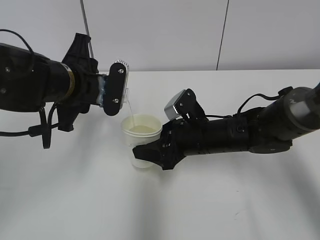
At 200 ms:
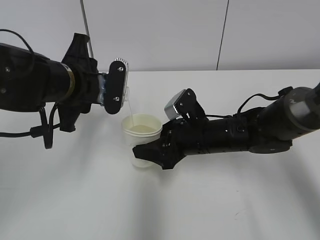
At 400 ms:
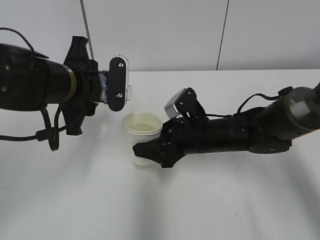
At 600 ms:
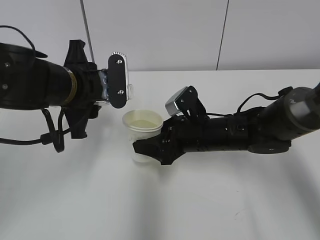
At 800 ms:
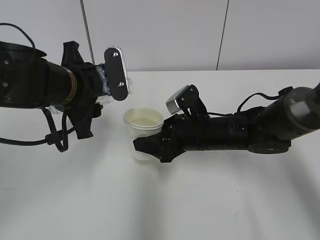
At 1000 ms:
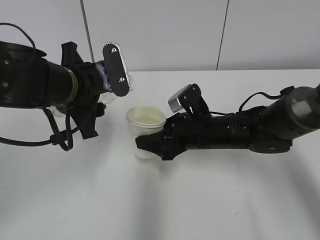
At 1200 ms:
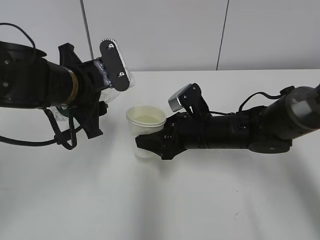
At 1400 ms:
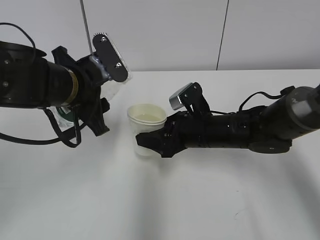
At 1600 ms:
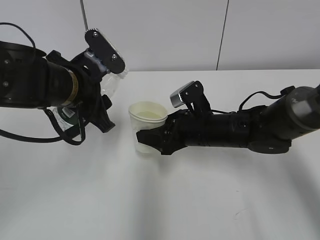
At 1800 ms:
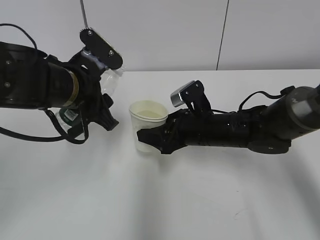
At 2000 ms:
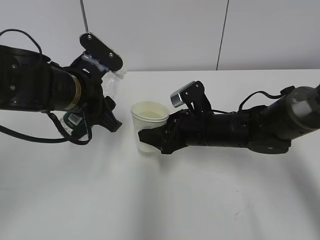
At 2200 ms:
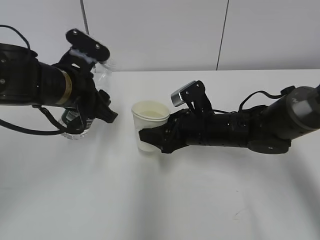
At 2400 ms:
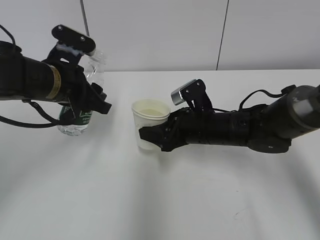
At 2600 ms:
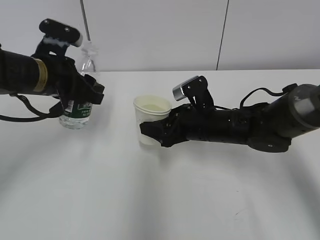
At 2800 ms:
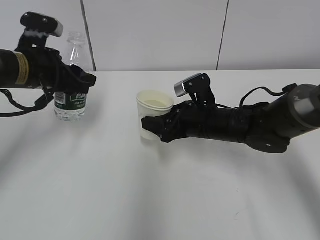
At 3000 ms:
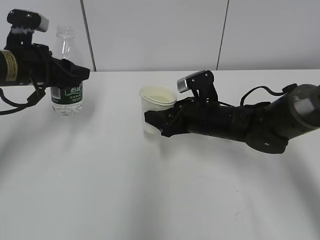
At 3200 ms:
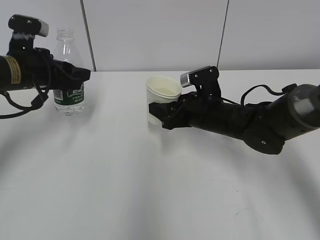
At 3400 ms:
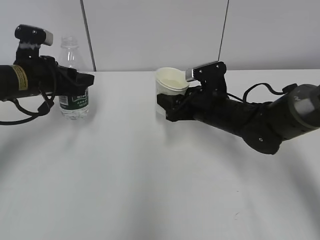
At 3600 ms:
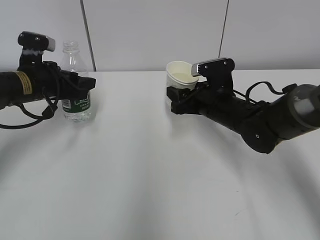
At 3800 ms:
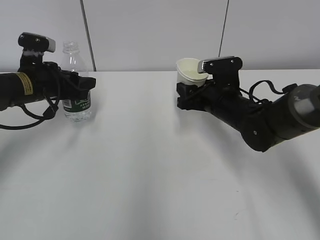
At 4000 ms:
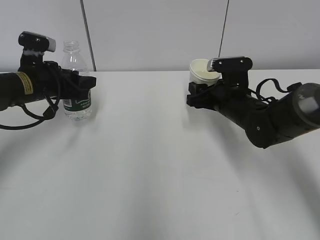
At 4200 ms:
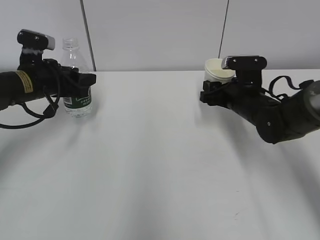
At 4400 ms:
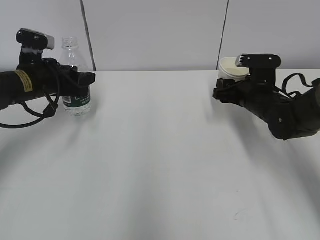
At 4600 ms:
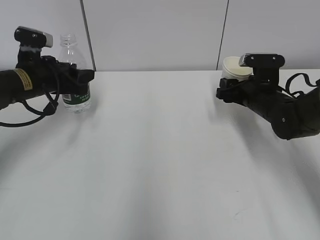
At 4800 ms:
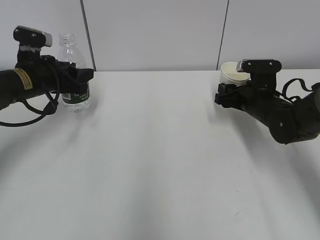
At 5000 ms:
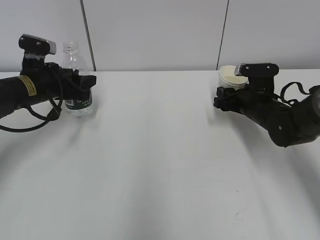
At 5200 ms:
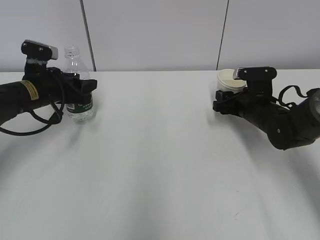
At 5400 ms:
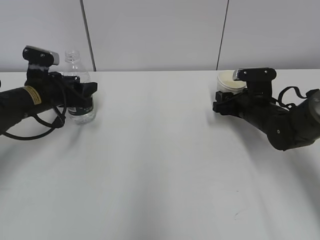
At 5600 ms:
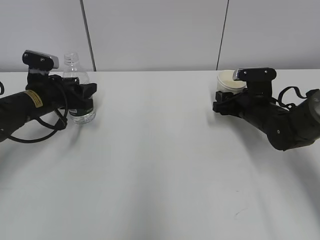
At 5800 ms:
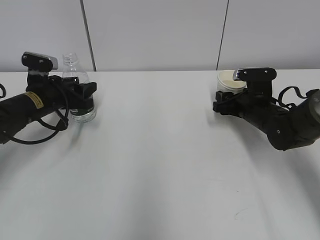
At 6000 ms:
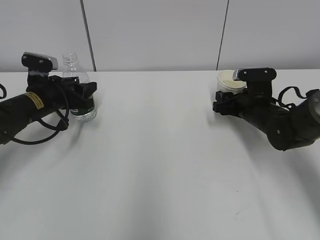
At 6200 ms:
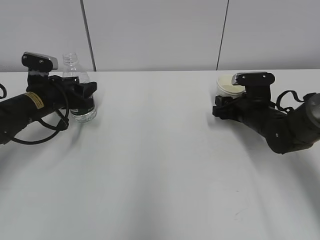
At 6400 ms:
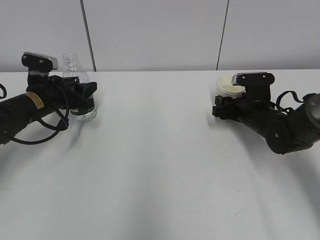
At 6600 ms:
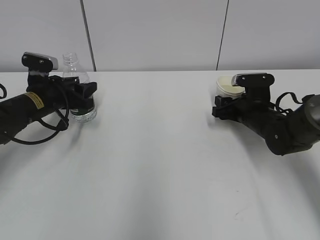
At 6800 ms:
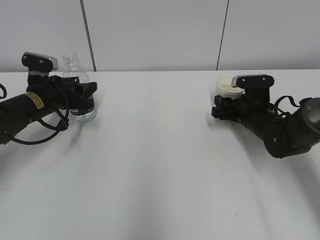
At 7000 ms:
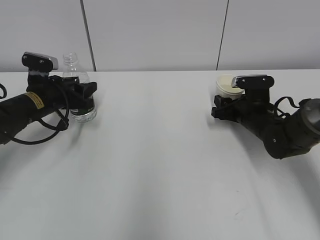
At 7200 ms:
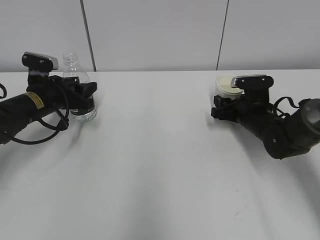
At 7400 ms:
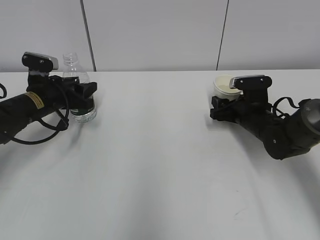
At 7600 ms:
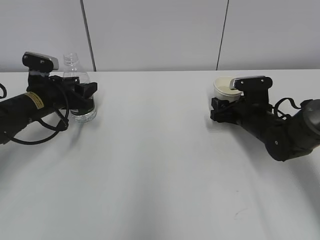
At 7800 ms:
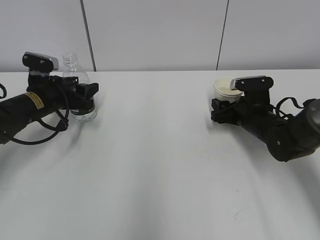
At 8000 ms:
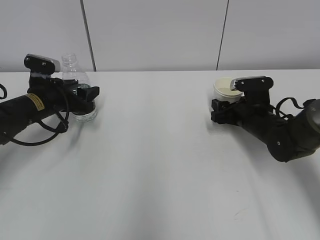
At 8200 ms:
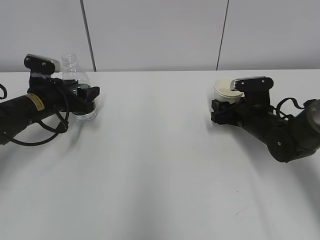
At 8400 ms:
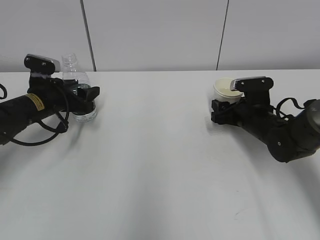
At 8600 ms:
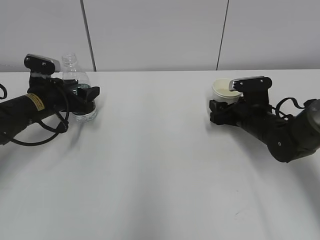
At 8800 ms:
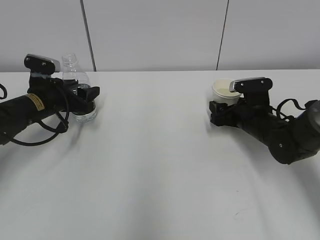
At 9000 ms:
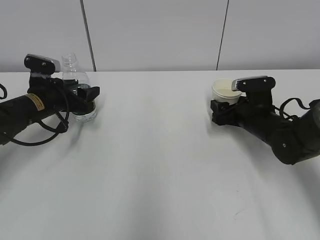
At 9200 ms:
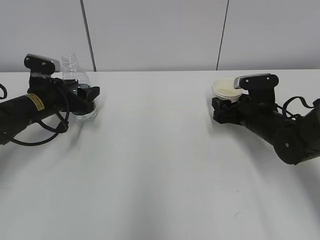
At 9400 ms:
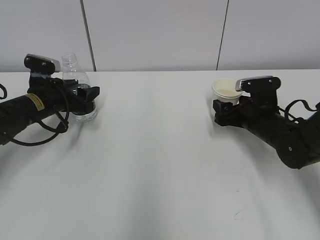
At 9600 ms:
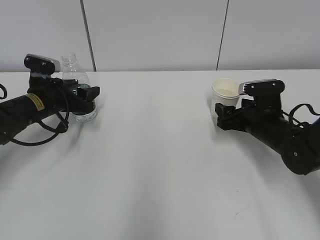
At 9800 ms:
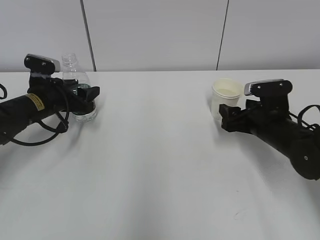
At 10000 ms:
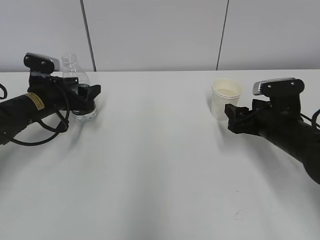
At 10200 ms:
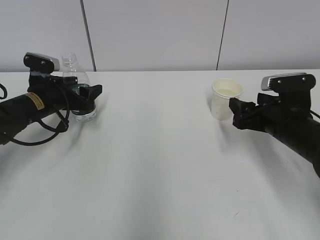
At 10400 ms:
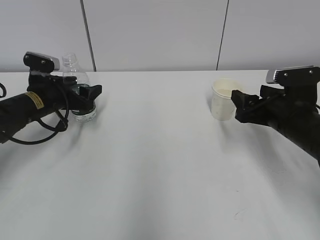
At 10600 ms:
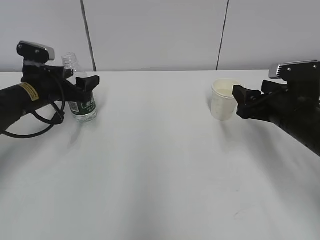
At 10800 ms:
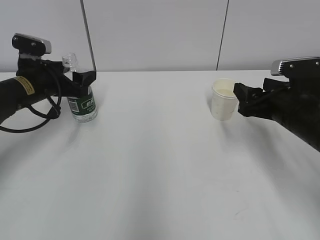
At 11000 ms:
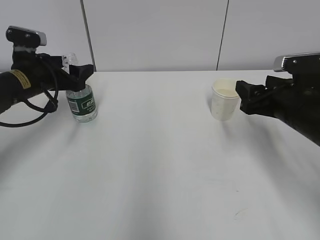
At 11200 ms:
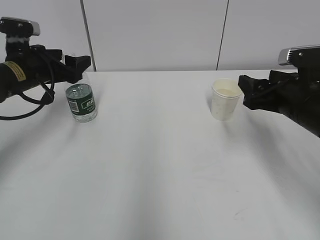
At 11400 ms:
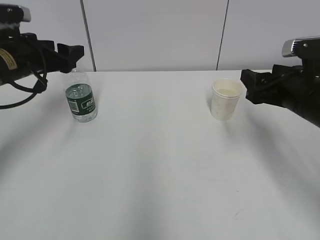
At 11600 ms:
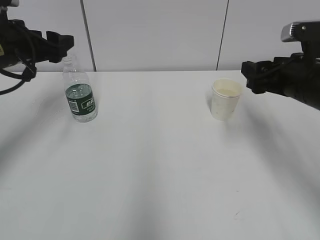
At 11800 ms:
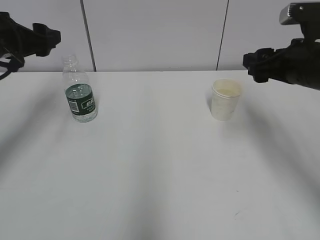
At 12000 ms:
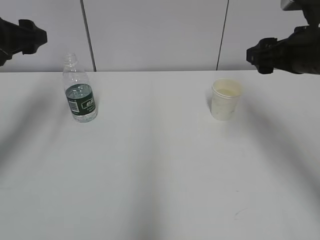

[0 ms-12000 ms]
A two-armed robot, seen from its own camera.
Step, 0 ms to 2600 ms: Place the water bottle with the left hand.
Step, 2800 ms to 3200 ms: Place the paper cup with the right hand.
1600 ms to 3000 ms: The left gripper travels to the left and forward by approximately 10 cm.
3000 ms to 4400 ms: The right gripper travels to the right by approximately 10 cm; the left gripper moves about 5 cm.
4400 ms to 6000 ms: The left gripper goes about 5 cm downward.
6000 ms to 7600 ms: The right gripper opens its fingers.
7600 ms to 9000 ms: The right gripper opens.
9000 ms to 10400 ms: The right gripper moves backward and upward, approximately 10 cm.
10400 ms to 12000 ms: Both grippers move upward, about 15 cm.

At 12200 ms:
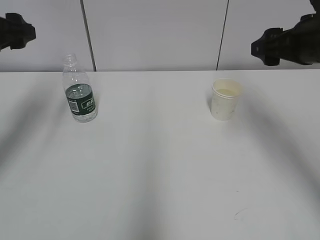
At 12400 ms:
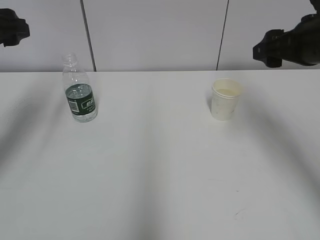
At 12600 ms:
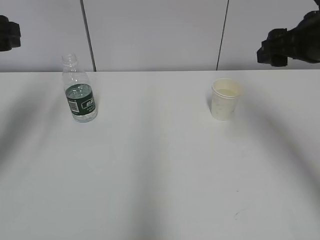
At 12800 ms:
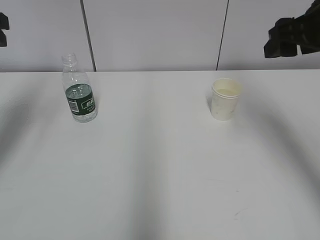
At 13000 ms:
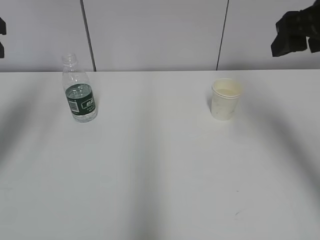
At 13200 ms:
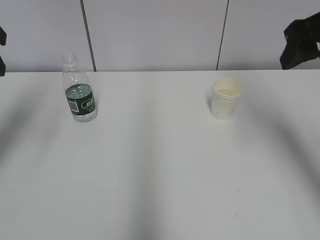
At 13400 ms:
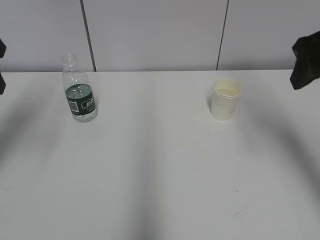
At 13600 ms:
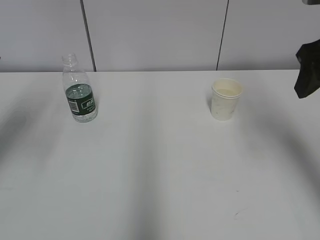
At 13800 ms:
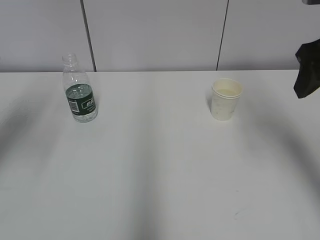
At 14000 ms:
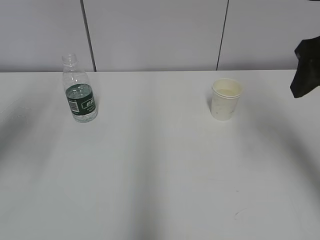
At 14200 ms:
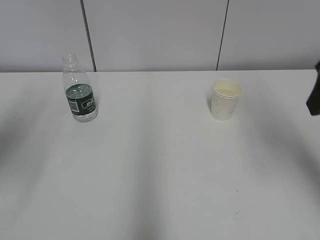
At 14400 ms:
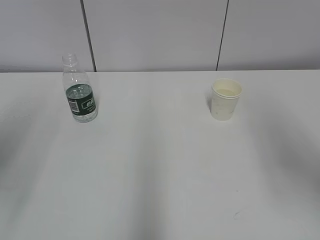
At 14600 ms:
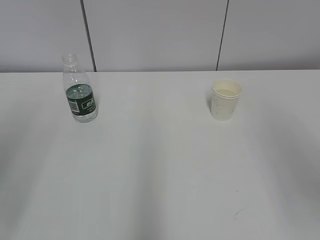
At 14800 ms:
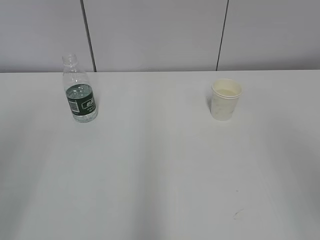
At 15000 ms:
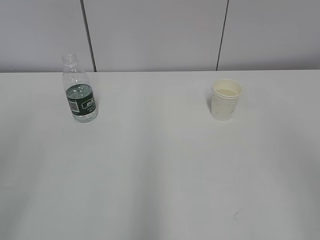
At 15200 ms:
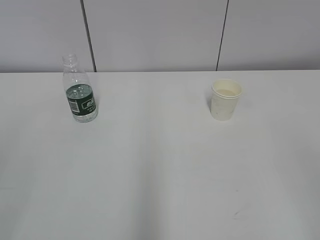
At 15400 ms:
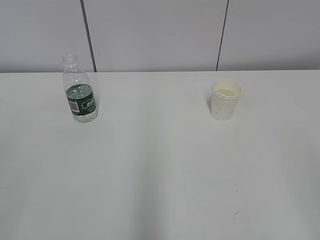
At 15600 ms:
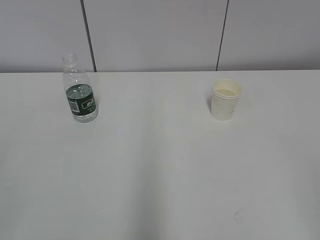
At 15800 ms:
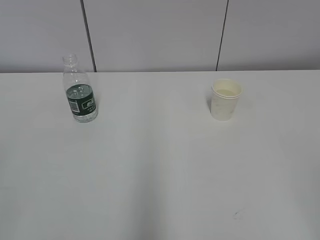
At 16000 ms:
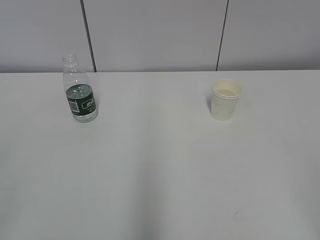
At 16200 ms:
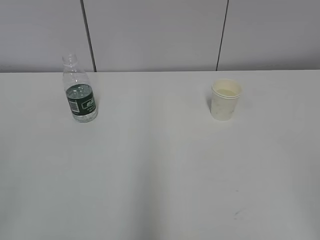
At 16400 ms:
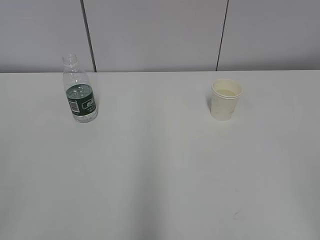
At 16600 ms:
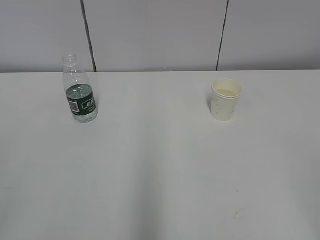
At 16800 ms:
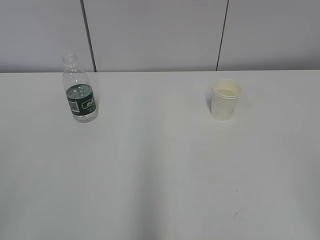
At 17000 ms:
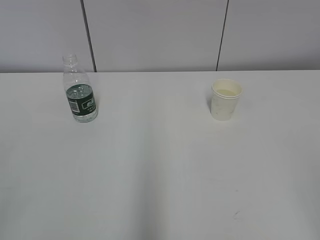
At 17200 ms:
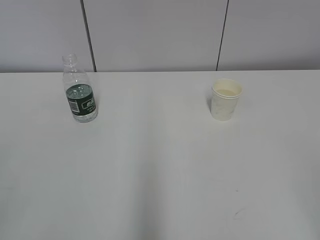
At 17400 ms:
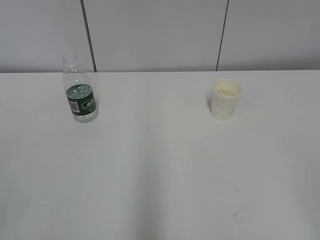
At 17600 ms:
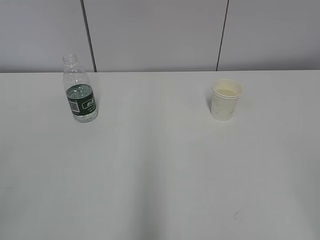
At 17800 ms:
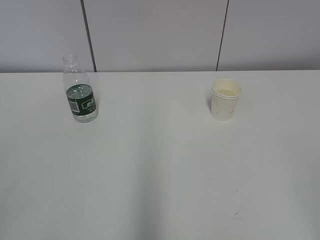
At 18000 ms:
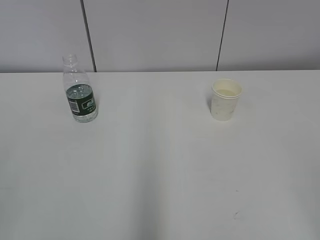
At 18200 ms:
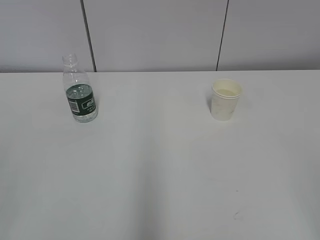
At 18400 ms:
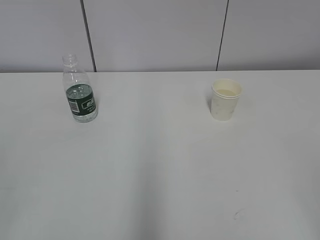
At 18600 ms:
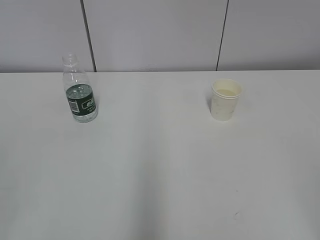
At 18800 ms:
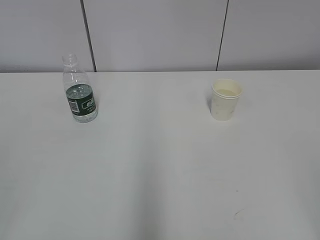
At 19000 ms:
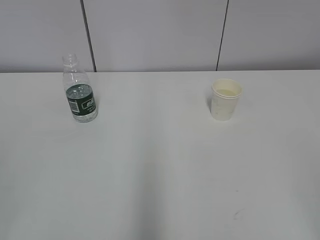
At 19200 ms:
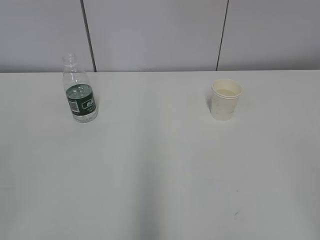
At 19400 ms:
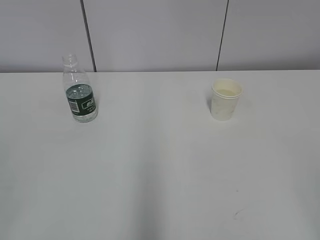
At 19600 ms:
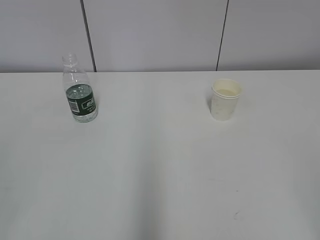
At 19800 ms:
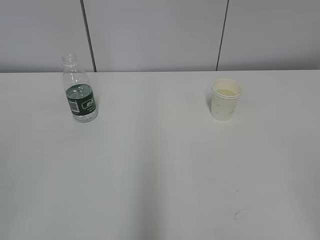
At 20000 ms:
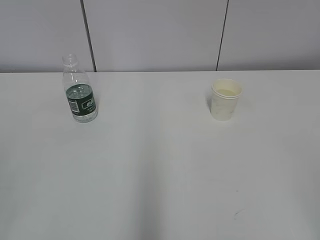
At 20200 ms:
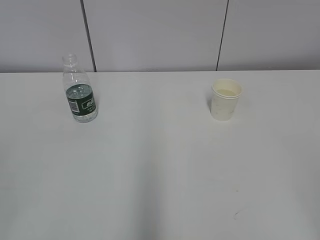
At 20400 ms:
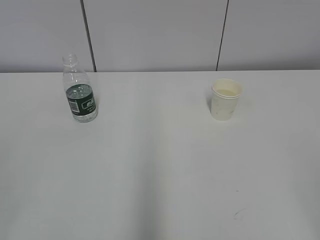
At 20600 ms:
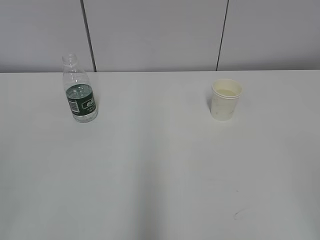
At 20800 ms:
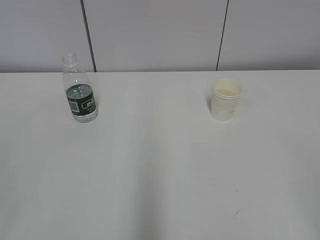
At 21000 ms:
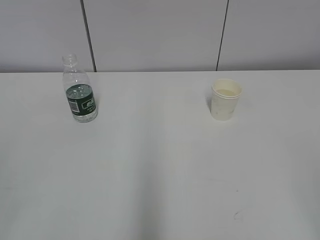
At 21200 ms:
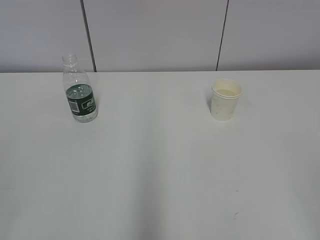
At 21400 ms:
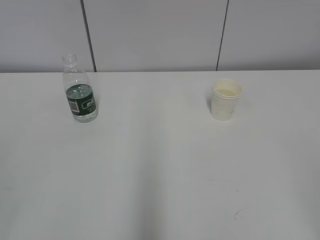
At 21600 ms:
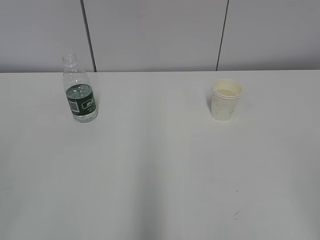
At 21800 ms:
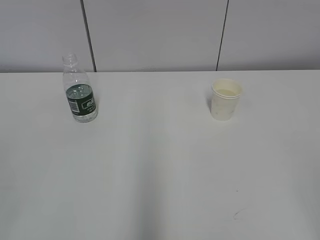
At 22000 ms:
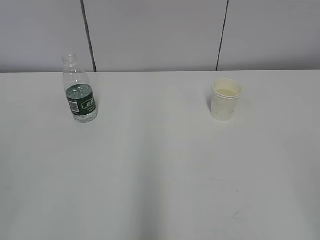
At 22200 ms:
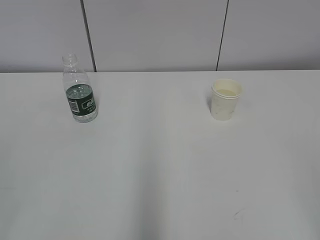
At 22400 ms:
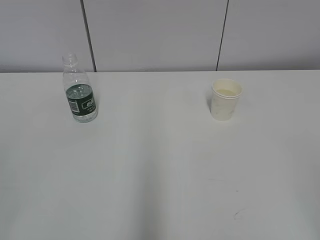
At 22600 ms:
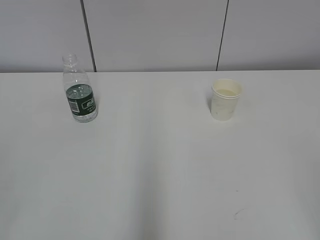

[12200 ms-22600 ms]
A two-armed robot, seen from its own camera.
12200 ms to 13600 ms: The left gripper travels backward by some 5 cm, while the right gripper travels upward by roughly 5 cm.
13600 ms to 15200 ms: The grippers both shift backward by about 25 cm.
16600 ms to 22600 ms: Both grippers stay put.
